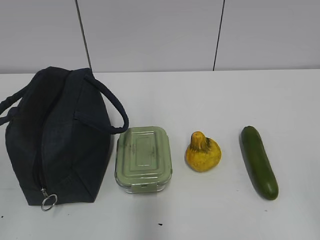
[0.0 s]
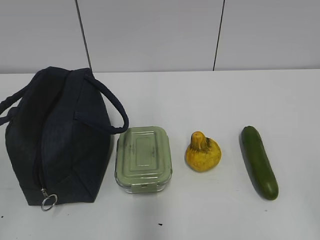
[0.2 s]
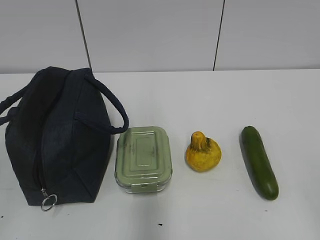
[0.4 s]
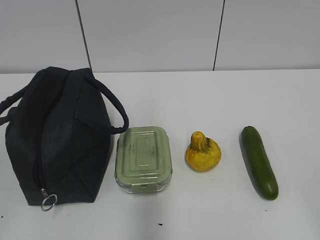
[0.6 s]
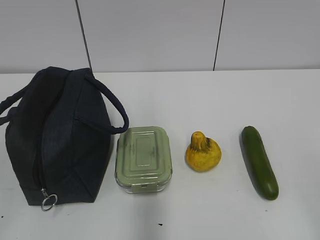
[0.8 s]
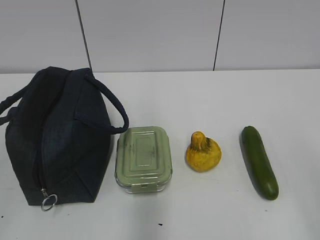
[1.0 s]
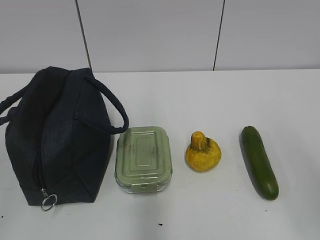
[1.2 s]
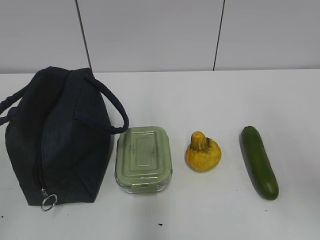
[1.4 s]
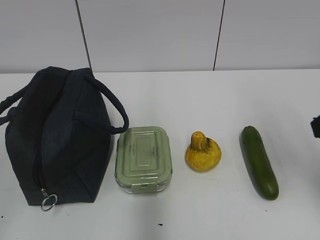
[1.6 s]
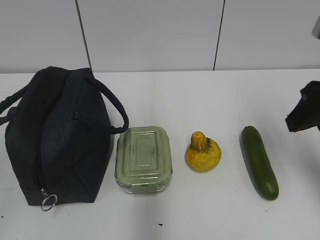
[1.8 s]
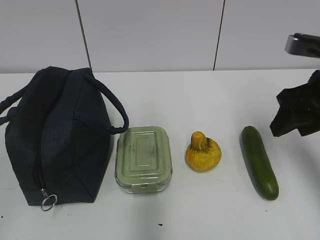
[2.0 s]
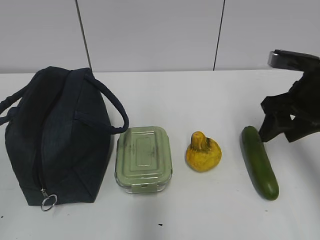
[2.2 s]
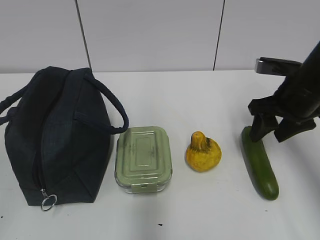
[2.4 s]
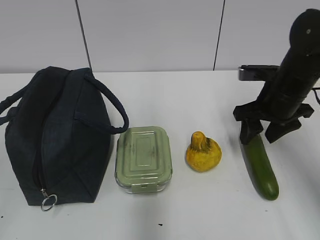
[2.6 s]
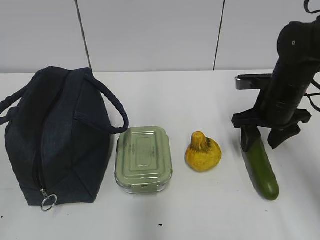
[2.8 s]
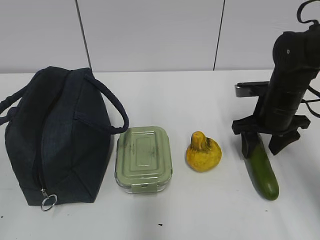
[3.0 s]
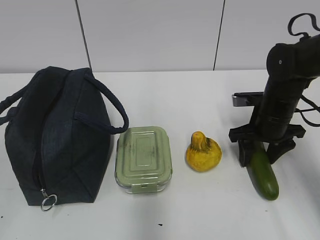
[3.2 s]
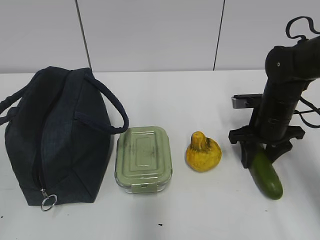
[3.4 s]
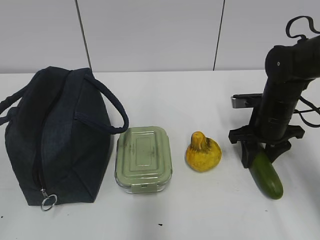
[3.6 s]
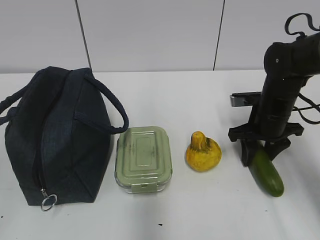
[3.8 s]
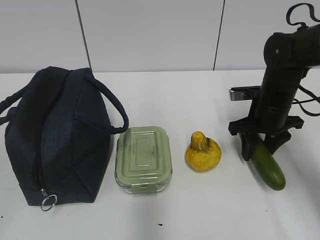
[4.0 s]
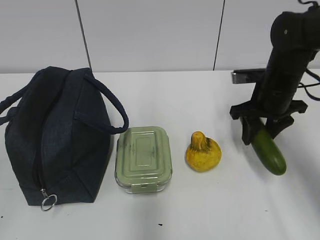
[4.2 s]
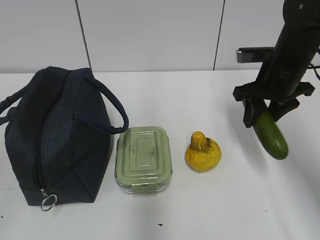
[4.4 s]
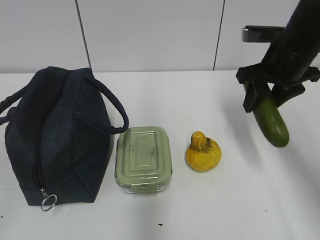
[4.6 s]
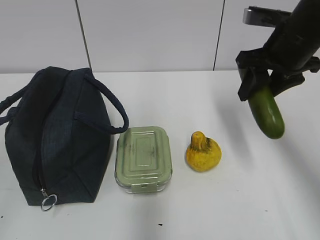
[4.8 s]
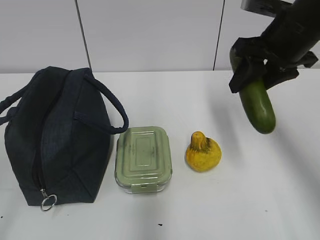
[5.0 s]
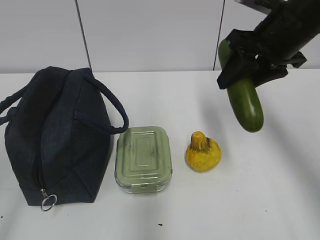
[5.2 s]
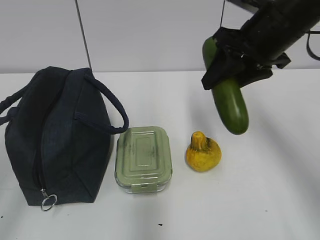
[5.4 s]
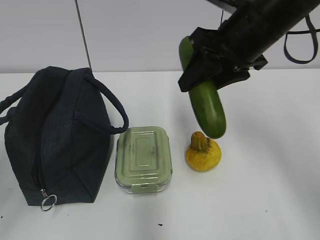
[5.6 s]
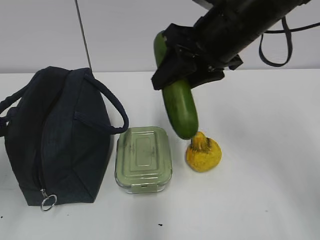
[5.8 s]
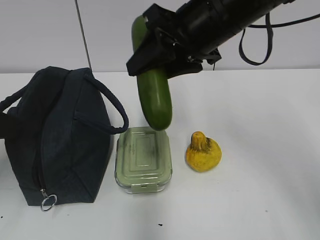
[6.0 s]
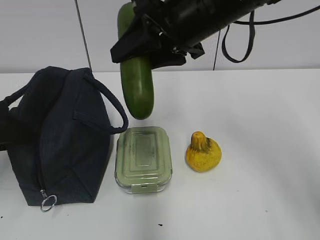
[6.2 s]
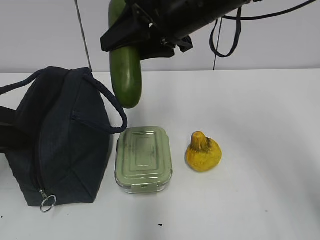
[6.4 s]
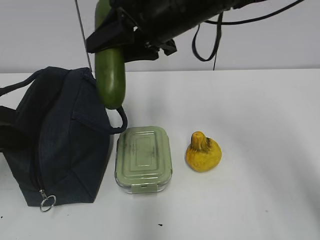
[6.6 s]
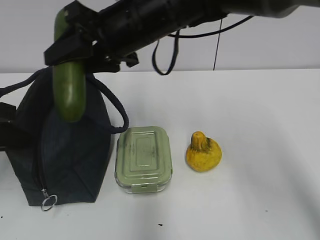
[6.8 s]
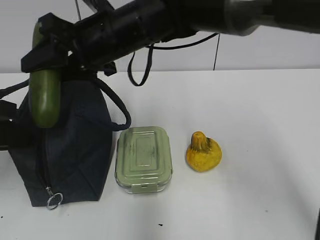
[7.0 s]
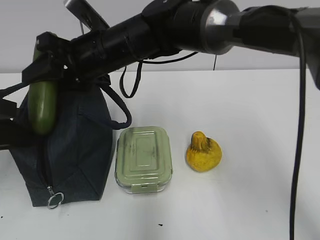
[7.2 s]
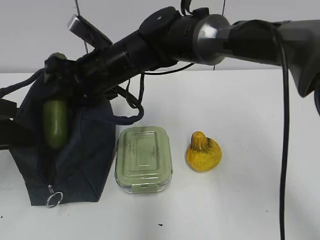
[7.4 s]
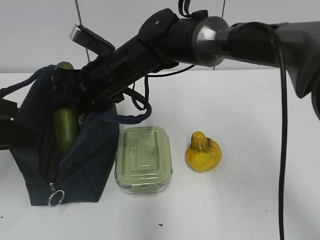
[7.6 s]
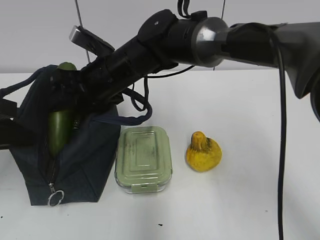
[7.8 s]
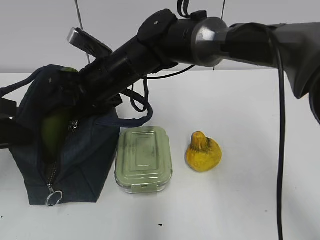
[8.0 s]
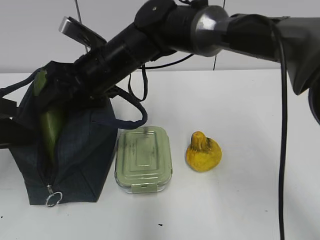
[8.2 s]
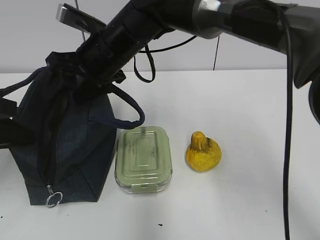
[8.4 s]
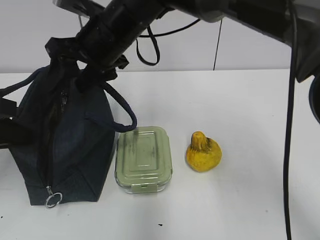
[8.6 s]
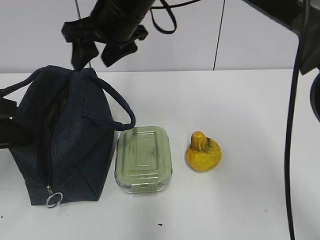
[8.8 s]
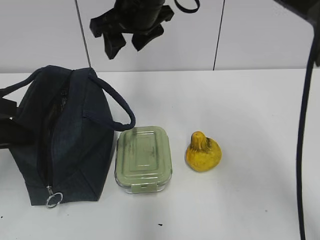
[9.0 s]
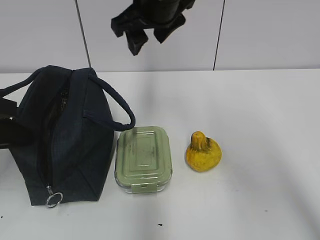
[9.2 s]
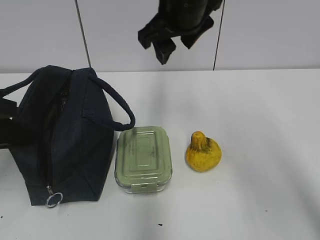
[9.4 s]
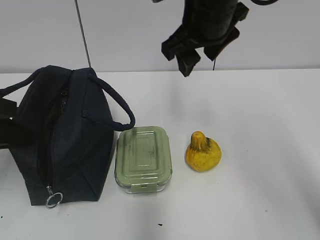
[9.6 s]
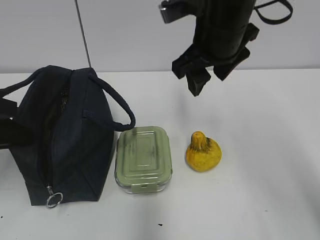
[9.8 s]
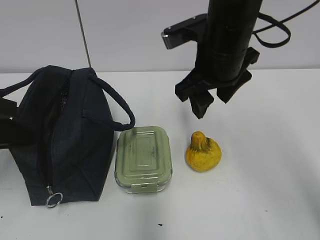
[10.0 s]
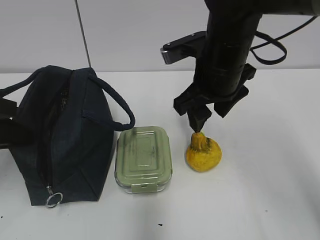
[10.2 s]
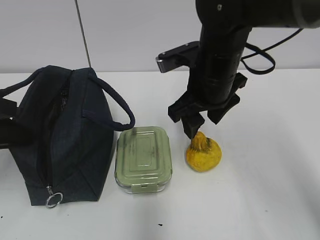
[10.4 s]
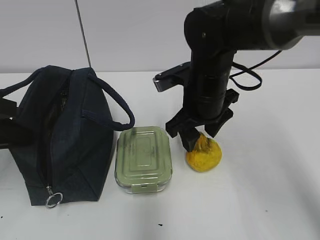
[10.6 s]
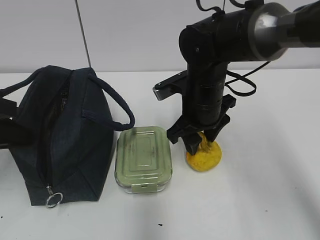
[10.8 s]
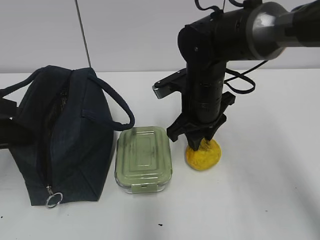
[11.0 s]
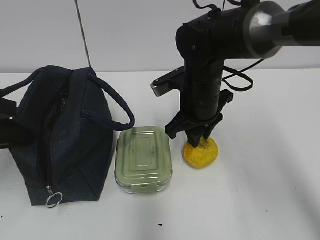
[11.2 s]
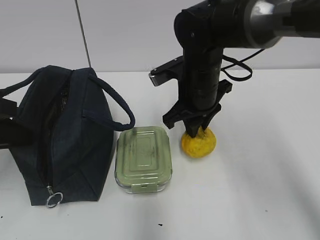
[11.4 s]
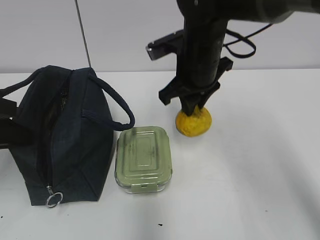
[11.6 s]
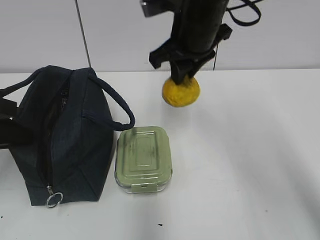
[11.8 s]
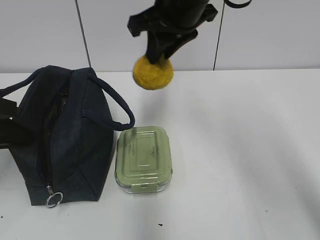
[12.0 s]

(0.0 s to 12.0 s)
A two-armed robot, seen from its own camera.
1.6 s - 3.0 s: The right gripper travels forward and downward by some 25 cm.
3.0 s - 4.4 s: The right gripper heads upward, covering some 5 cm.
4.4 s - 6.0 s: The right gripper is displaced to the left, upward and backward by approximately 20 cm. Meanwhile the left gripper goes approximately 20 cm forward.
6.0 s - 7.6 s: The left gripper closes its fingers, while the right gripper travels to the left, downward and forward by approximately 20 cm.
7.6 s - 9.0 s: The right gripper moves upward and to the right, roughly 15 cm.
9.0 s - 10.4 s: The right gripper moves downward, to the right and backward, some 15 cm.
10.4 s - 12.0 s: The right gripper shifts approximately 10 cm upward, and closes its fingers.

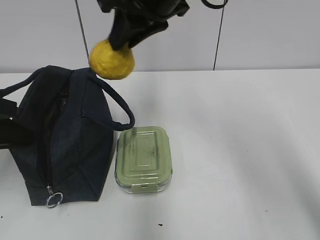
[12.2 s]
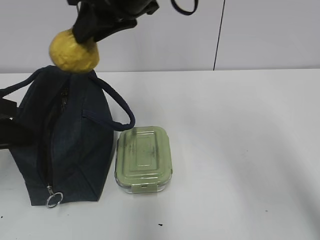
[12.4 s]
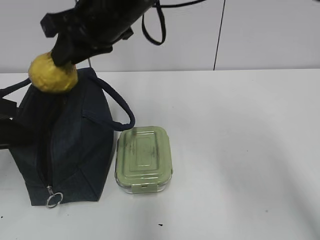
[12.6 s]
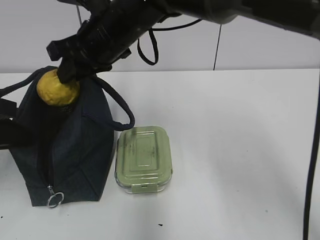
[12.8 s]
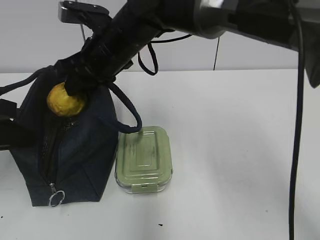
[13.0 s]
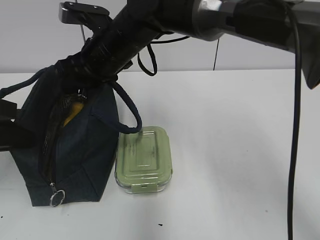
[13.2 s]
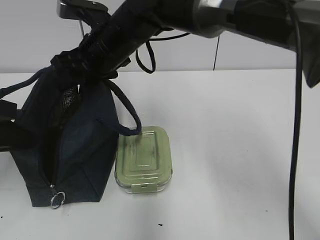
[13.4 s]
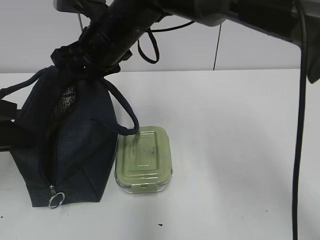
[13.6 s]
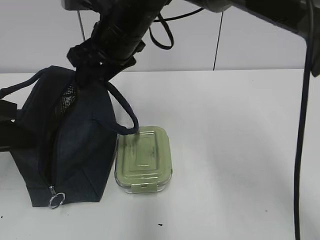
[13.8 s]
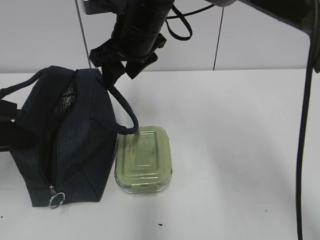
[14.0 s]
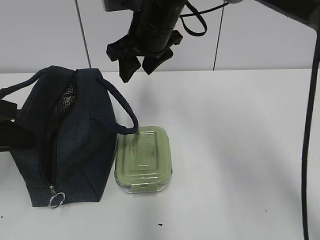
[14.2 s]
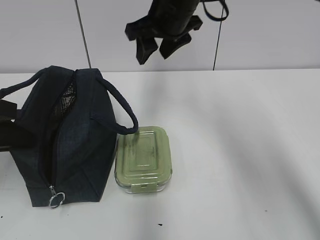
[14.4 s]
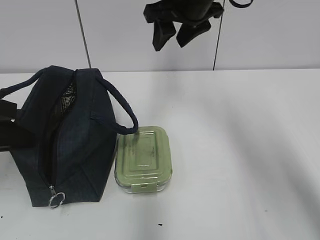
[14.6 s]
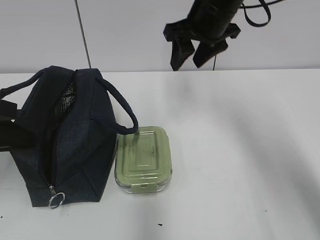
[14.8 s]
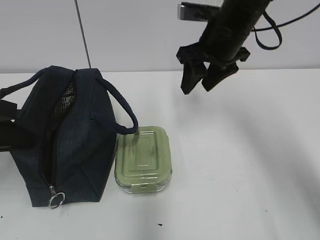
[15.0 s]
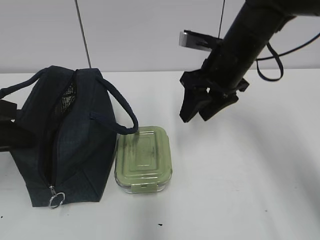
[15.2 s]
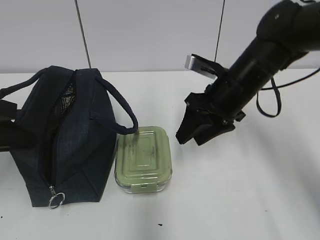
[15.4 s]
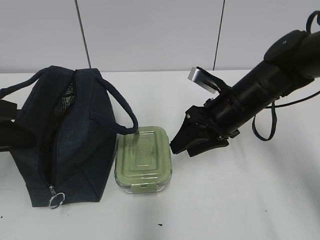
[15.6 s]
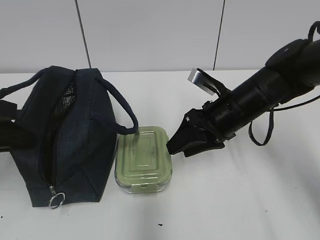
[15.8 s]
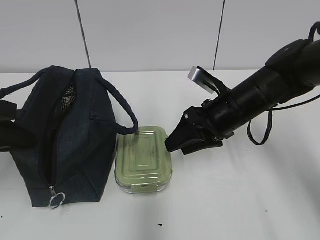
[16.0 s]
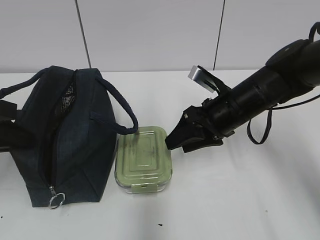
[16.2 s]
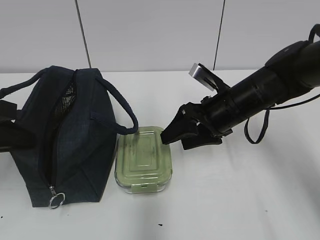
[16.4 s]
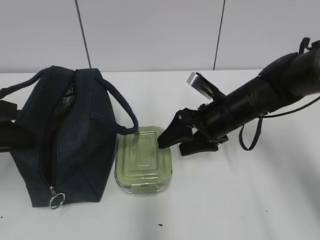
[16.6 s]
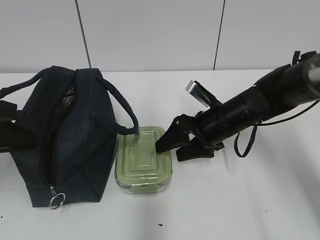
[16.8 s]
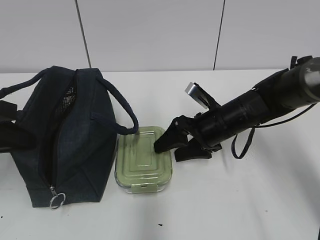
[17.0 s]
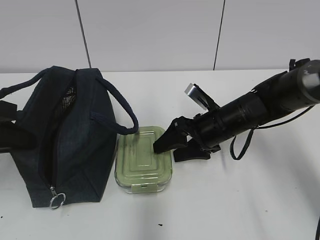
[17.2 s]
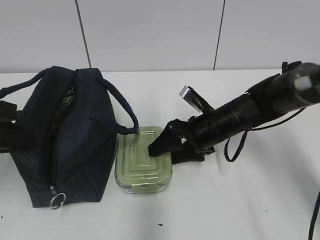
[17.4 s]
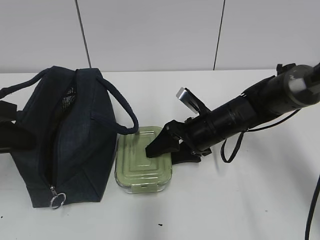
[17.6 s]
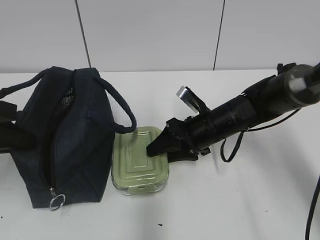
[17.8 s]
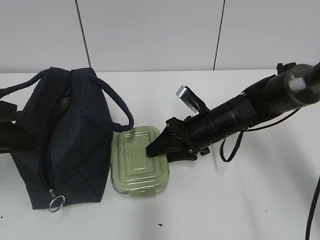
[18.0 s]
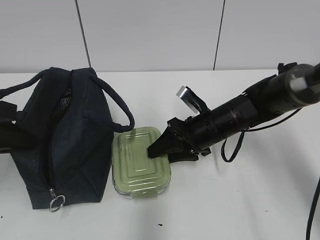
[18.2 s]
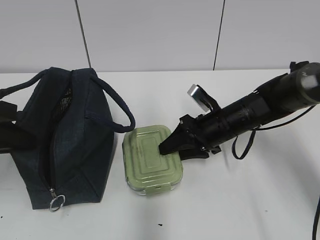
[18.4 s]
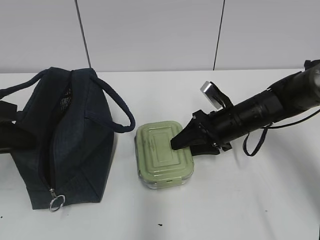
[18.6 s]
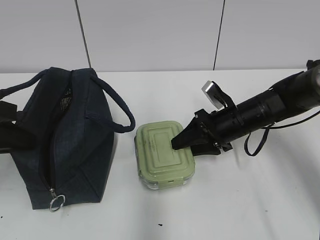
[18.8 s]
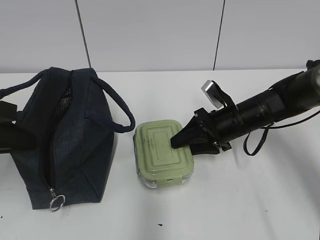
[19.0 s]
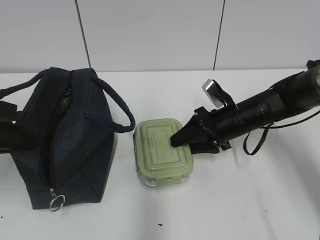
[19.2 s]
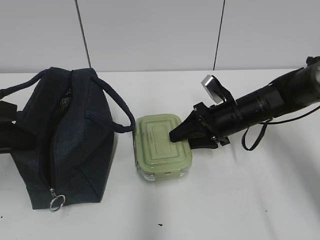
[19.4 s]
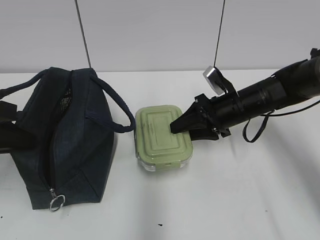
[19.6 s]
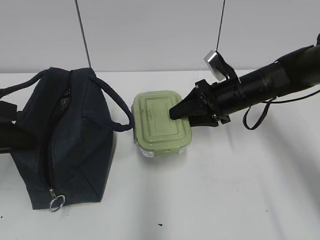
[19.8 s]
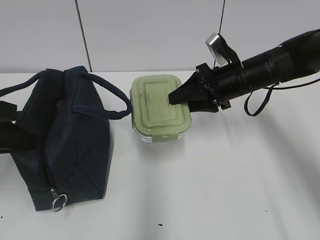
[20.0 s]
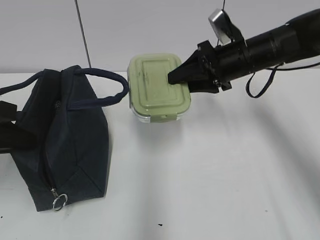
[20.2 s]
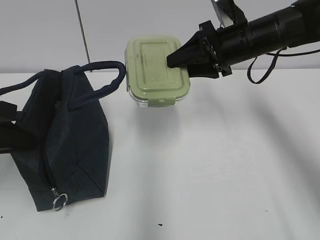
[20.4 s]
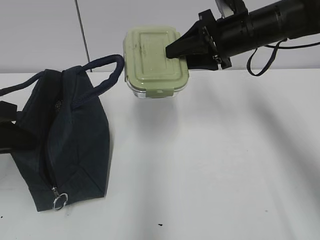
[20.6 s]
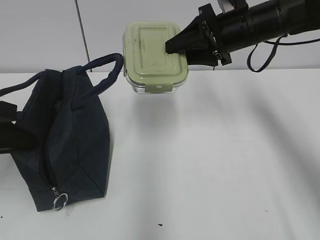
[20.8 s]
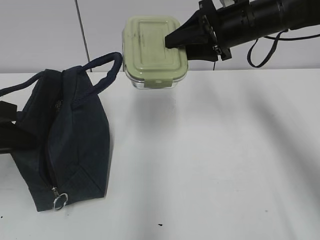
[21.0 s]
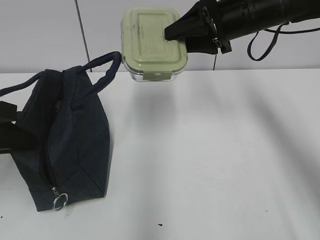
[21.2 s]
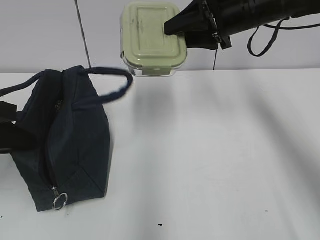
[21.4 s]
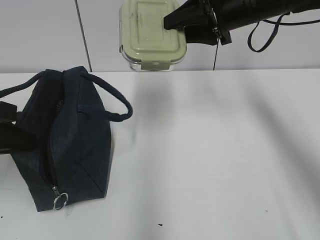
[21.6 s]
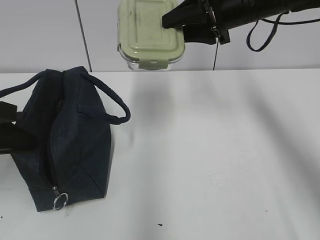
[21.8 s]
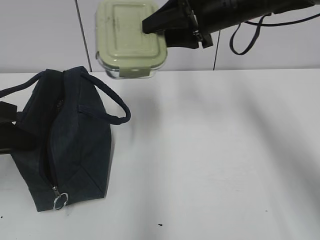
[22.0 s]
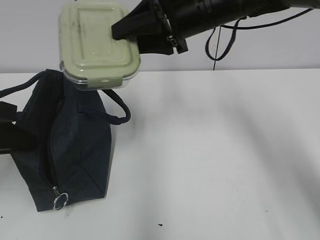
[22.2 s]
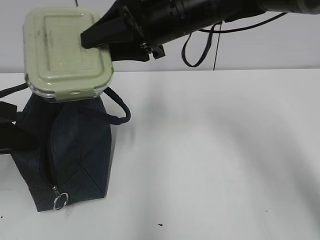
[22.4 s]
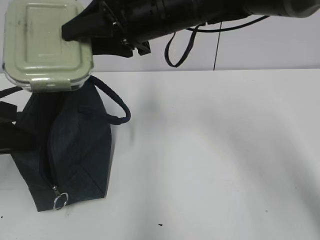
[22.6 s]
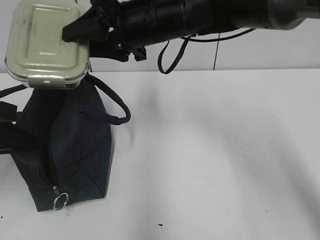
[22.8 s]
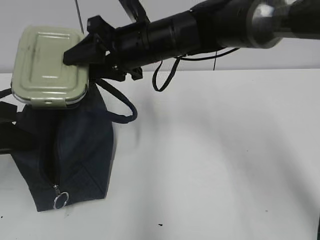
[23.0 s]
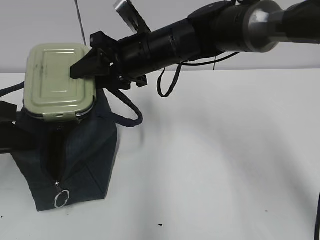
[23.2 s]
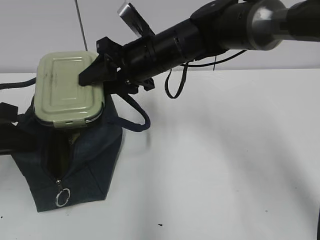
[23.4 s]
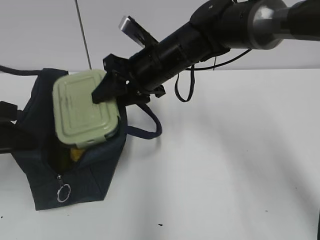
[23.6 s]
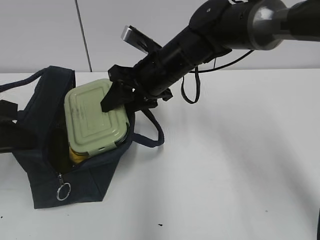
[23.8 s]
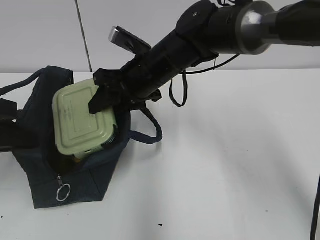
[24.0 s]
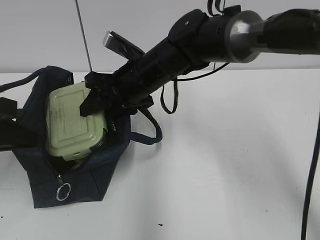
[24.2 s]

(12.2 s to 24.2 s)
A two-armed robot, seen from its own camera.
12.2 s - 13.8 s: The right gripper heads downward and to the left, covering roughly 10 cm, and opens.
13.8 s - 15.2 s: The right gripper goes about 15 cm to the right.
15.2 s - 16.6 s: The right gripper heads downward, covering some 10 cm.
16.6 s - 18.2 s: There are only small adjustments of the grippers.
18.2 s - 19.8 s: The right gripper moves upward, some 5 cm.
19.8 s - 21.2 s: The right gripper travels upward by some 15 cm.
21.2 s - 22.6 s: The right gripper is displaced to the left by approximately 15 cm.
22.6 s - 24.2 s: The right gripper heads downward, covering some 10 cm.
